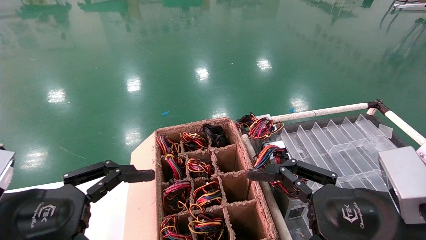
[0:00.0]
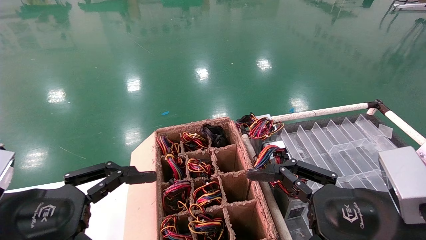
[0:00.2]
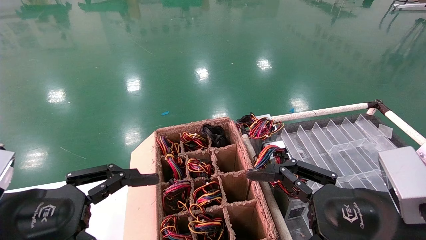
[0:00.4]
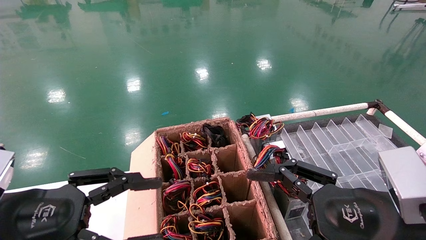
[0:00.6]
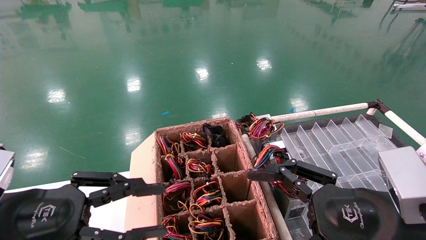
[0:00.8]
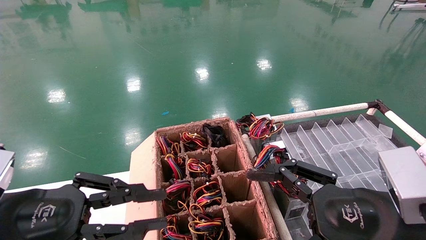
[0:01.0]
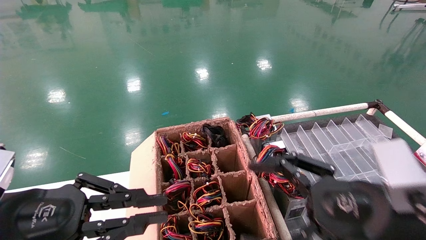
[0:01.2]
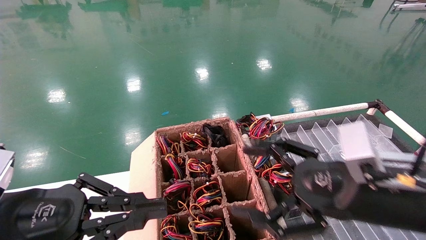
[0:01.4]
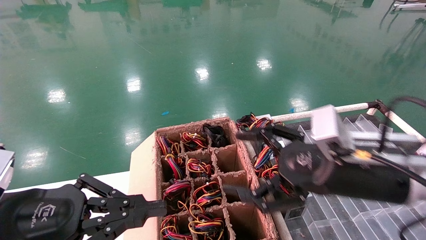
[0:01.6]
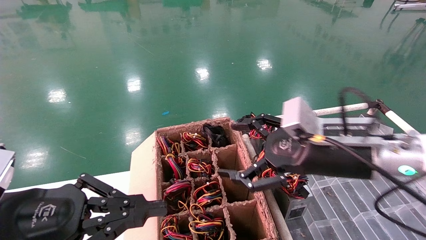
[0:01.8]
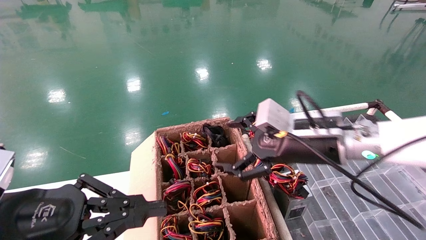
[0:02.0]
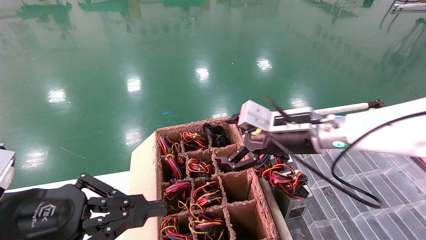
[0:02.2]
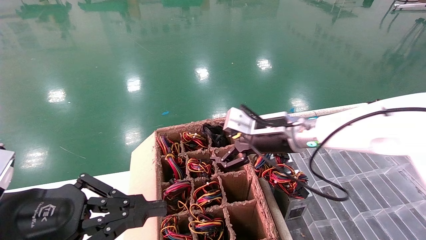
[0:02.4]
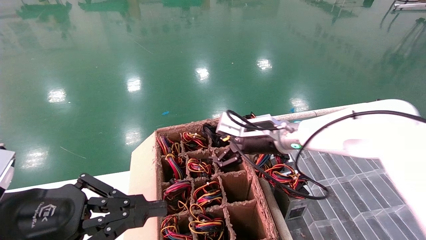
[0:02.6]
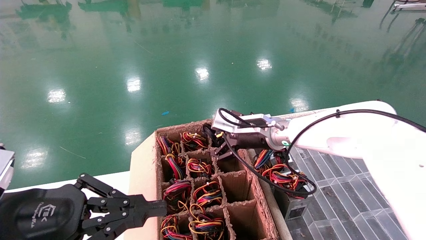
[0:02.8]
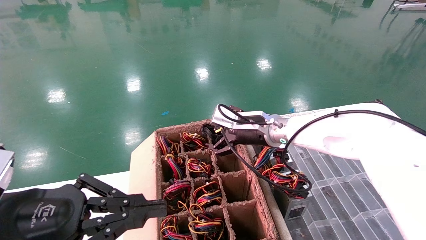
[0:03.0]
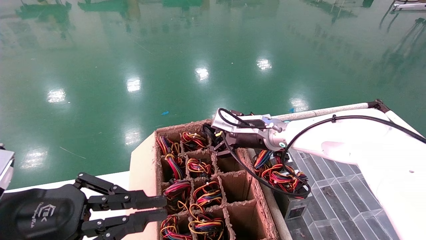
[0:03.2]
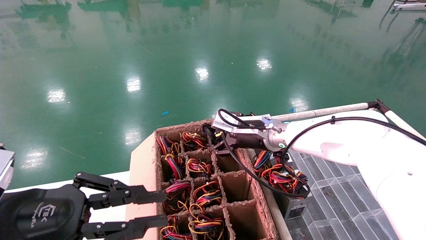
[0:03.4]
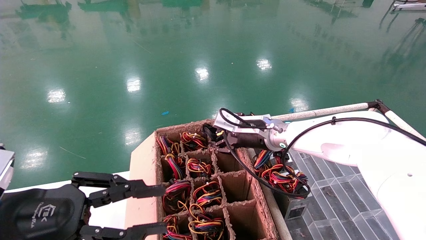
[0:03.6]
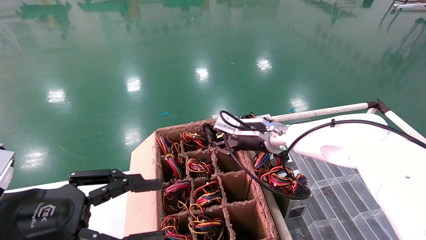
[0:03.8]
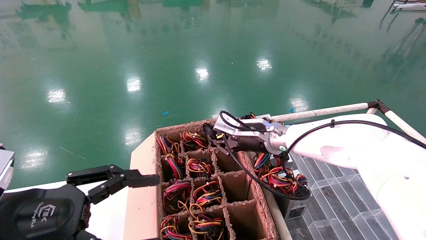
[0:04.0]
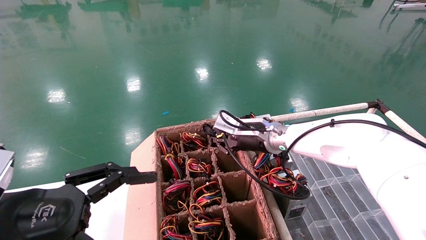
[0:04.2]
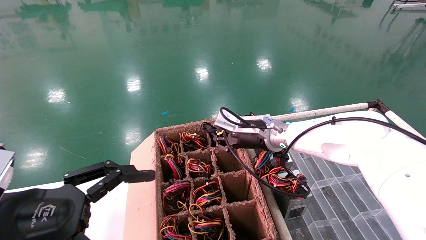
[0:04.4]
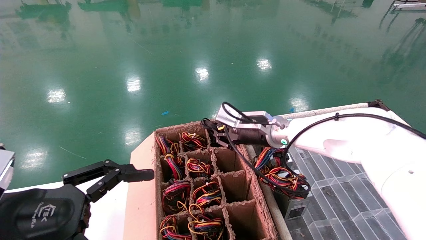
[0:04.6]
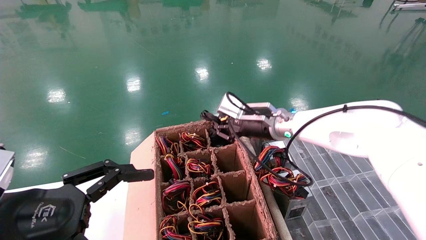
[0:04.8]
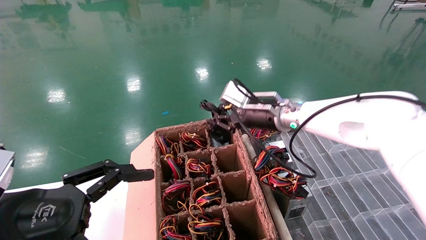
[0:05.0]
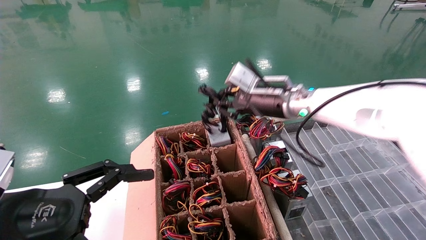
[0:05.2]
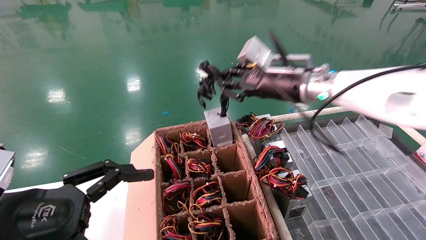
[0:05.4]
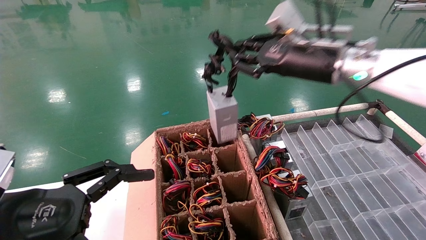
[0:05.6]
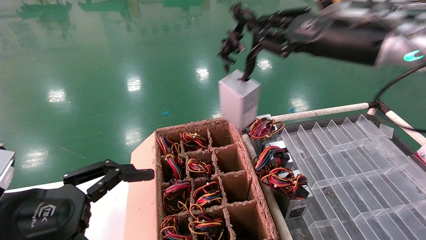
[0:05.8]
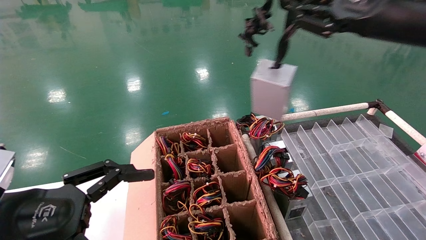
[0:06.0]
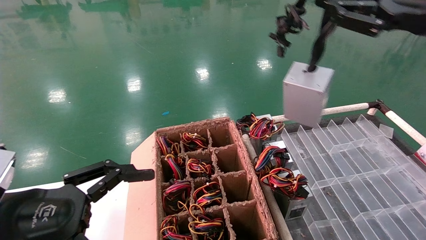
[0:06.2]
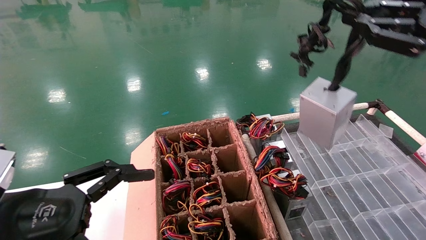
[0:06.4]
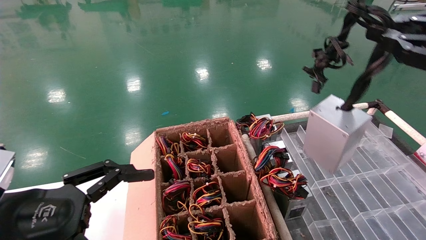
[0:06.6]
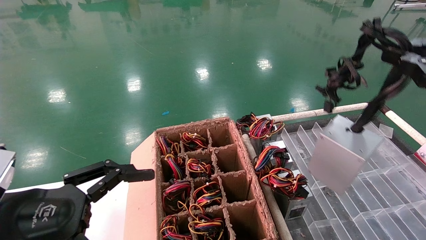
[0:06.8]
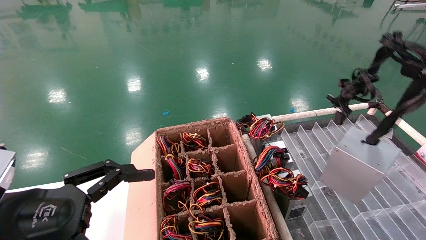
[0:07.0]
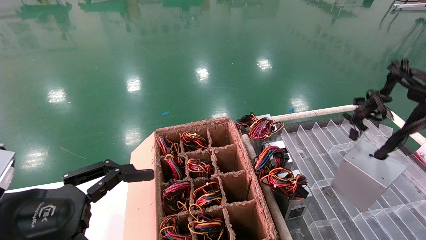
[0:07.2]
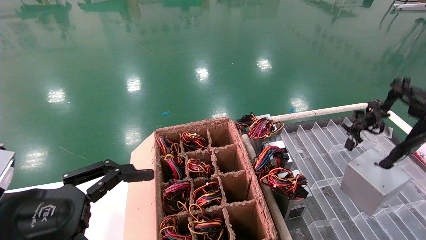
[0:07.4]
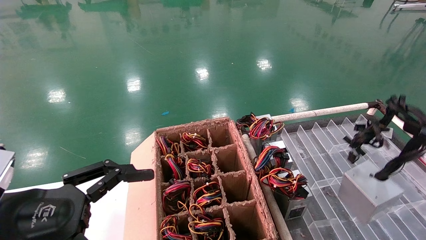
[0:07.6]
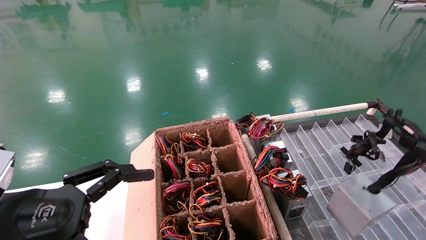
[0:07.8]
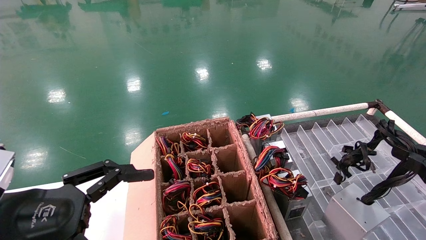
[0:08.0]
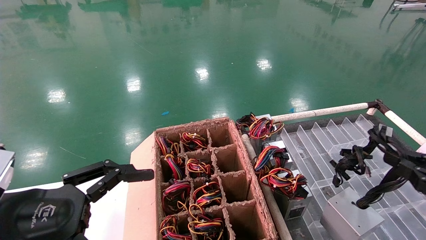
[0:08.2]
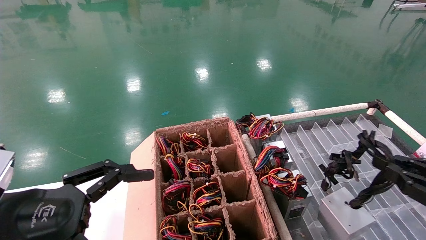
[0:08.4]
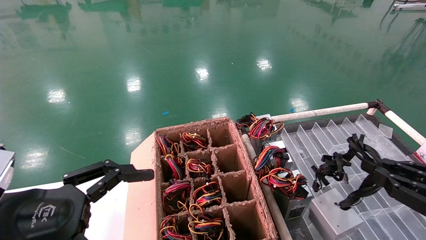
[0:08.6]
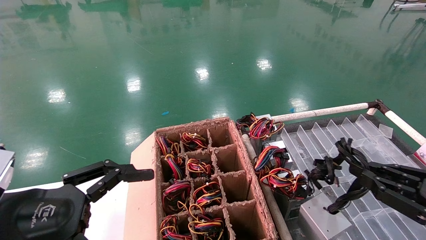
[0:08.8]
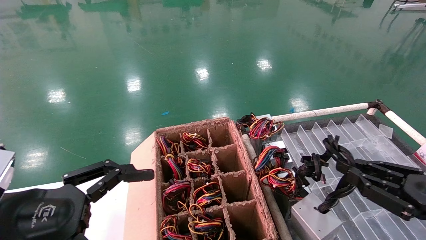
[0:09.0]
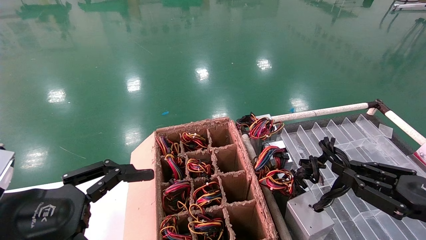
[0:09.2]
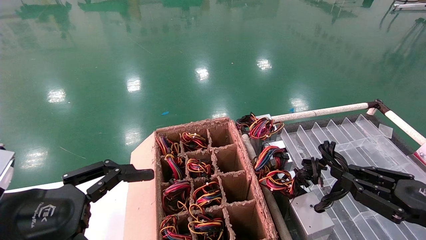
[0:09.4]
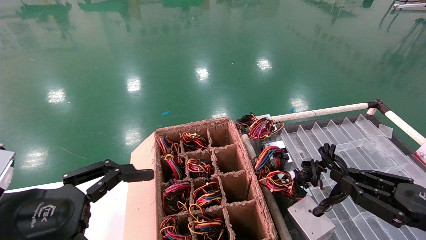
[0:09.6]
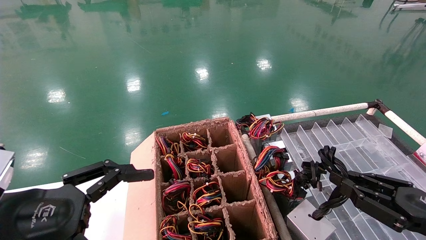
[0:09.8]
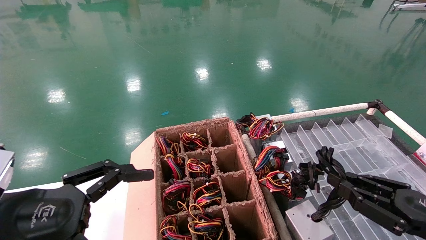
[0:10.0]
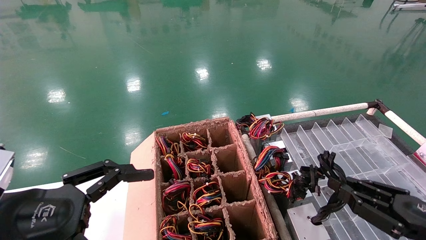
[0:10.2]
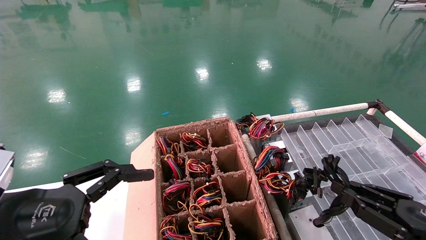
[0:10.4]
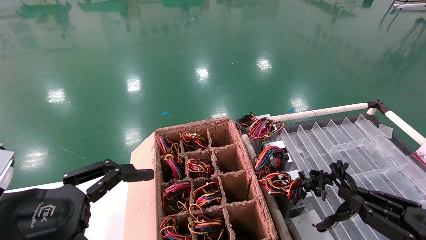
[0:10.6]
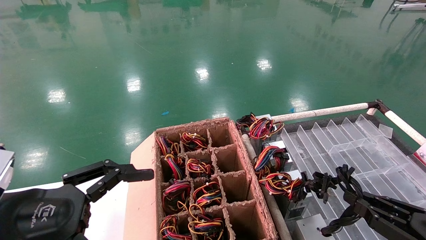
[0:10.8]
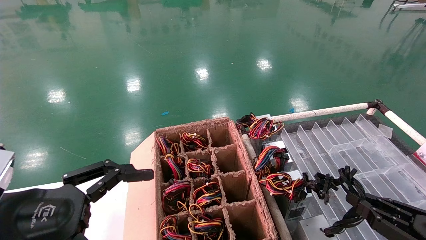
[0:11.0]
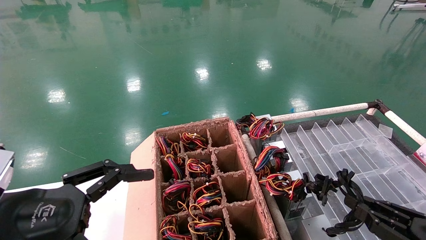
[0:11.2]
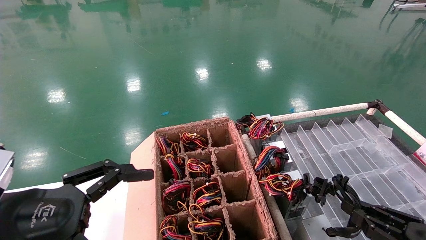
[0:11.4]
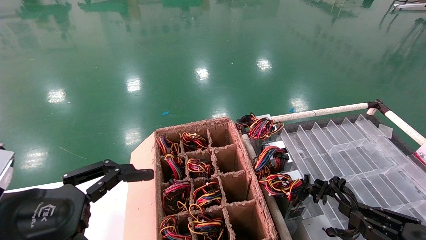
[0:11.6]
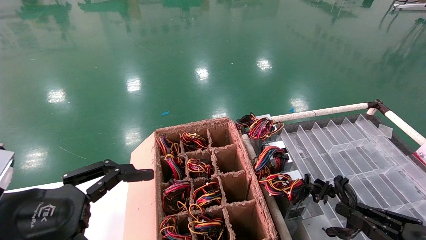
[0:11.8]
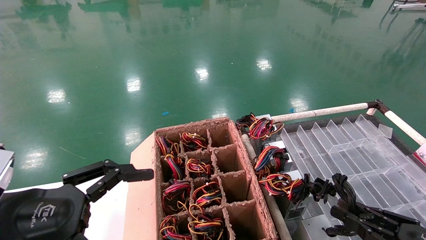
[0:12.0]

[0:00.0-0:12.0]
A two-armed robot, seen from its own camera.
Step, 0:00.4 to 0:04.2: Grab and lift the power supply from the large box.
0:00.0 to 0:01.6: The left gripper closes up, while the right gripper is displaced forward by about 10 cm.
0:01.6 to 0:03.0: The right gripper moves forward and to the left, some 20 cm.
0:03.0 to 0:04.4: The left gripper opens its fingers. Meanwhile the right gripper closes.
0:04.4 to 0:06.0: The right gripper travels upward, backward and to the right by some 30 cm.
0:06.0 to 0:07.6: The right gripper shifts roughly 25 cm downward, backward and to the right.
0:07.6 to 0:09.0: The right gripper is displaced downward and to the left by approximately 10 cm.
0:09.0 to 0:10.4: The right gripper goes about 5 cm downward.
0:10.4 to 0:12.0: The grippers stay close to where they were, moving slightly.

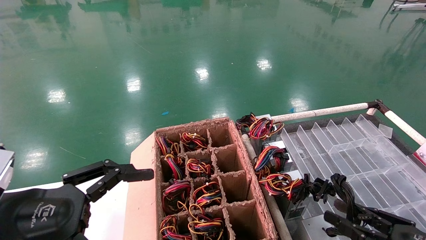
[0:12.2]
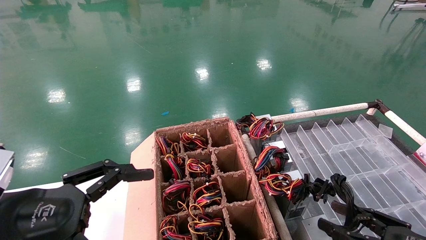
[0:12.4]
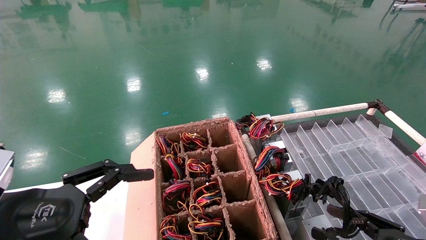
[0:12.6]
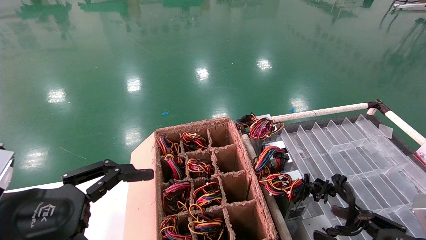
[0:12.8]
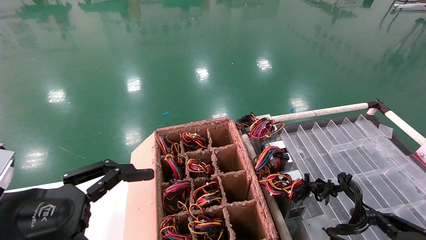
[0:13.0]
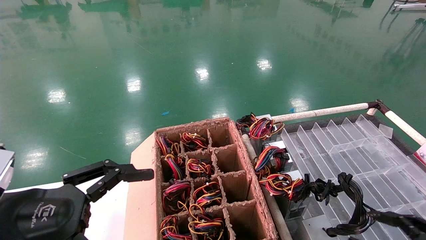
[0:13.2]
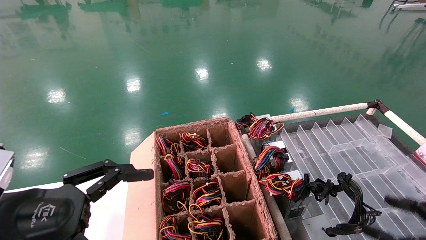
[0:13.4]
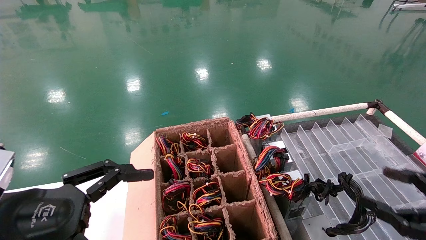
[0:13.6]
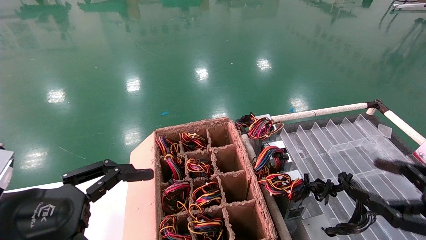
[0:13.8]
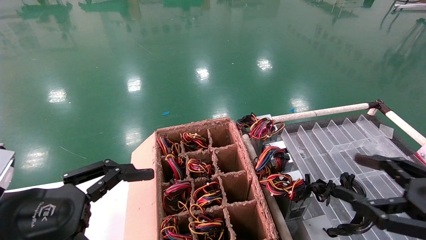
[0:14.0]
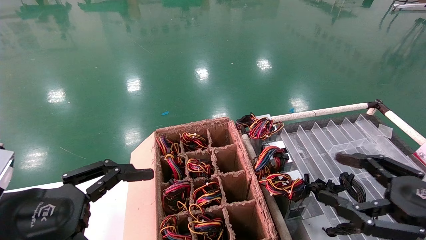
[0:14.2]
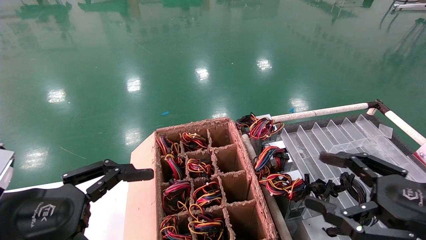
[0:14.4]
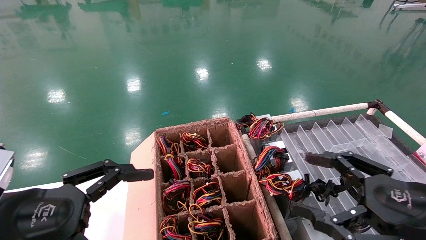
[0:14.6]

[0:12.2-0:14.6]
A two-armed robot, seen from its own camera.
0:12.2 to 0:13.4: The right gripper changes place by about 5 cm, and opens its fingers.
0:13.4 to 0:14.6: The right gripper travels to the left and upward by some 10 cm.
